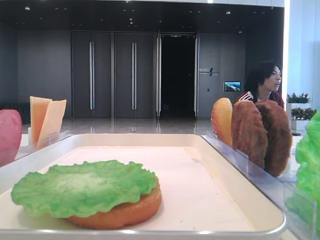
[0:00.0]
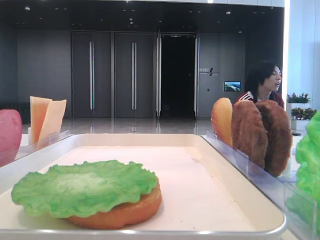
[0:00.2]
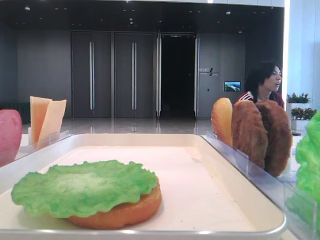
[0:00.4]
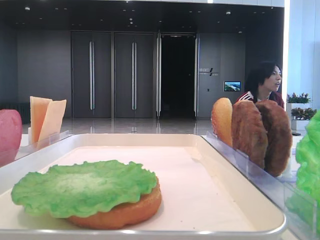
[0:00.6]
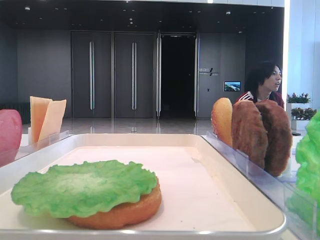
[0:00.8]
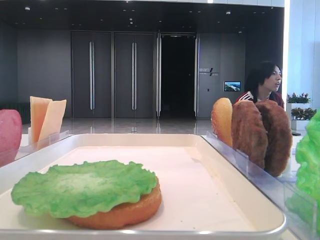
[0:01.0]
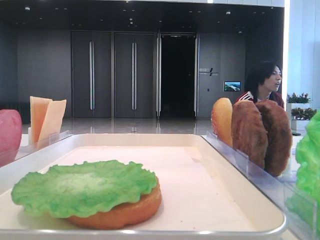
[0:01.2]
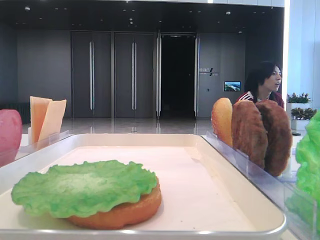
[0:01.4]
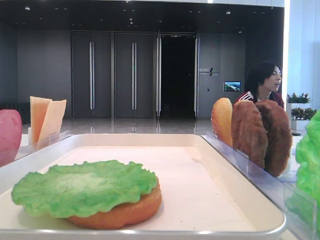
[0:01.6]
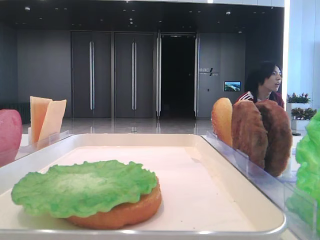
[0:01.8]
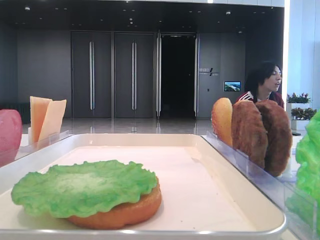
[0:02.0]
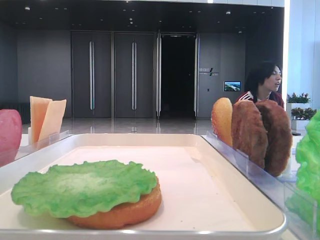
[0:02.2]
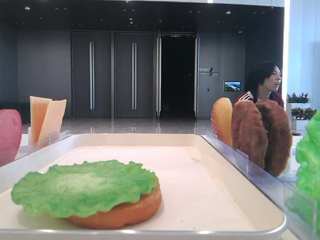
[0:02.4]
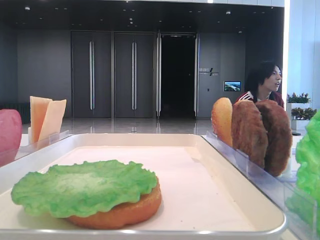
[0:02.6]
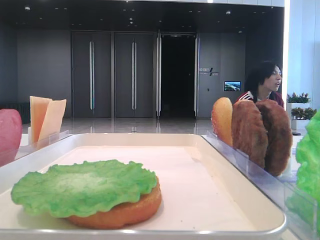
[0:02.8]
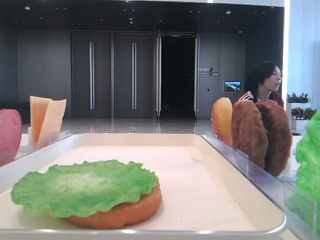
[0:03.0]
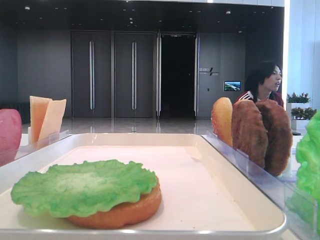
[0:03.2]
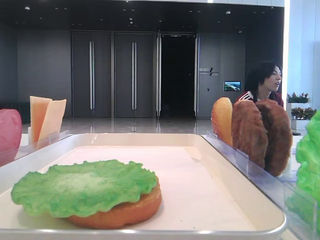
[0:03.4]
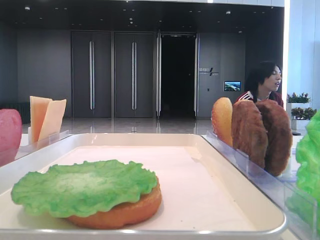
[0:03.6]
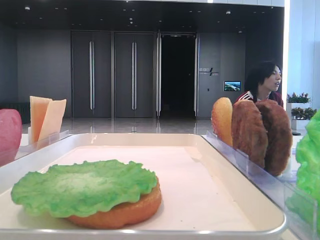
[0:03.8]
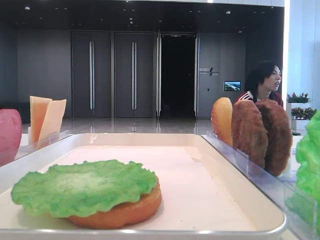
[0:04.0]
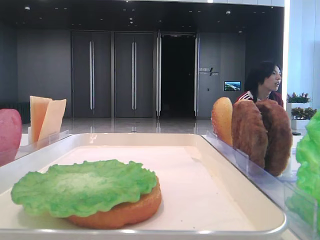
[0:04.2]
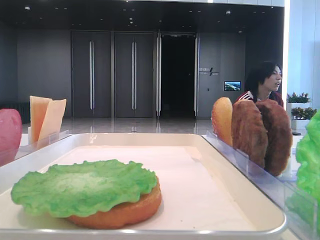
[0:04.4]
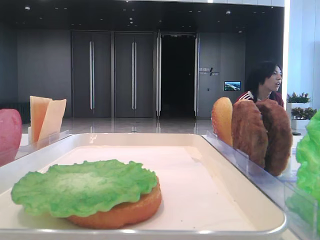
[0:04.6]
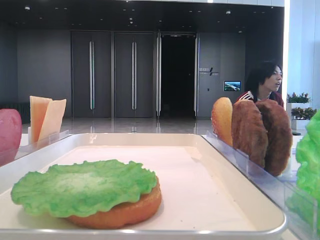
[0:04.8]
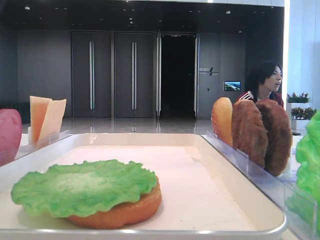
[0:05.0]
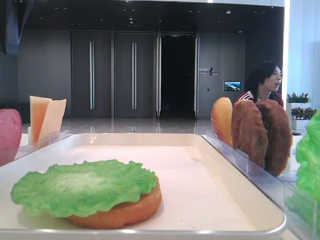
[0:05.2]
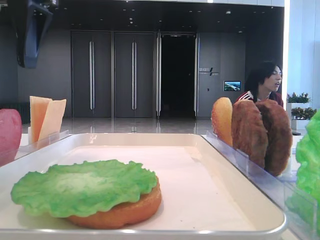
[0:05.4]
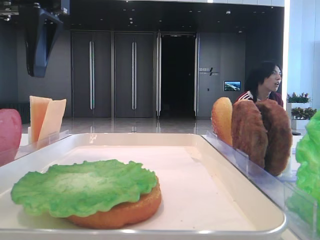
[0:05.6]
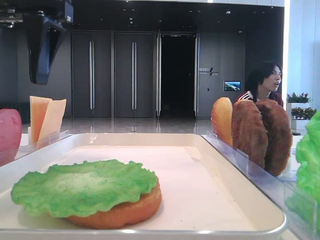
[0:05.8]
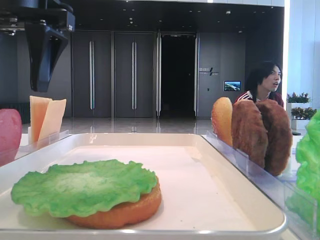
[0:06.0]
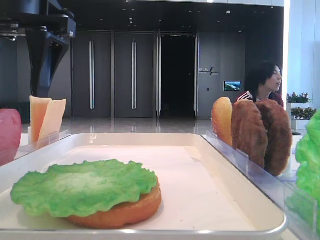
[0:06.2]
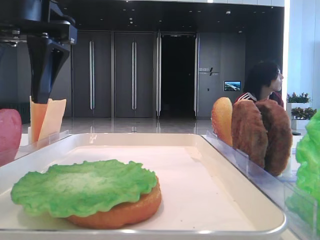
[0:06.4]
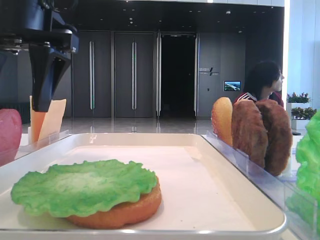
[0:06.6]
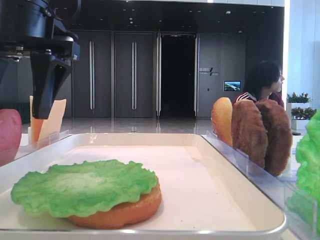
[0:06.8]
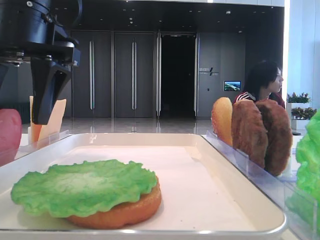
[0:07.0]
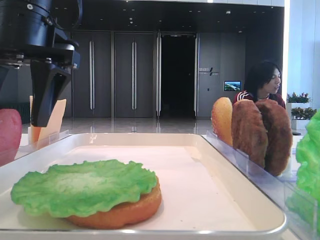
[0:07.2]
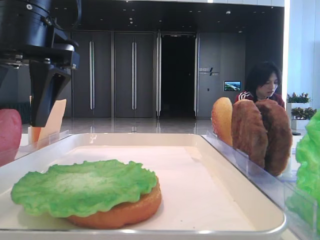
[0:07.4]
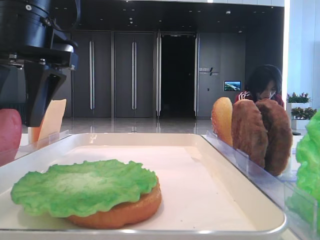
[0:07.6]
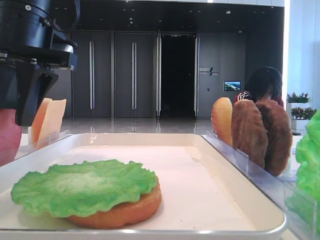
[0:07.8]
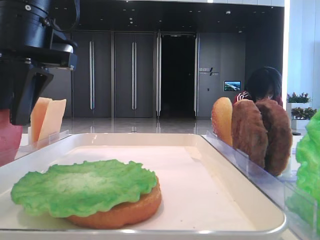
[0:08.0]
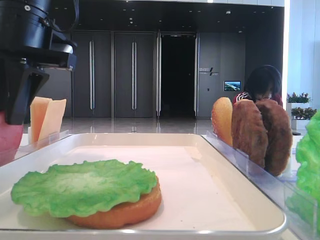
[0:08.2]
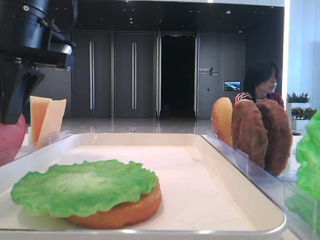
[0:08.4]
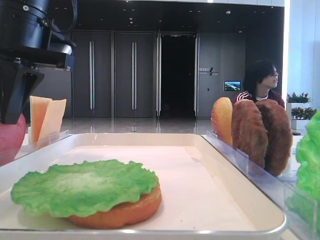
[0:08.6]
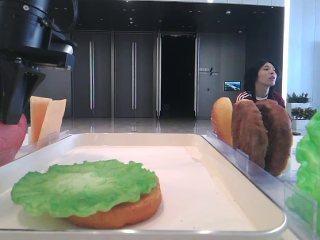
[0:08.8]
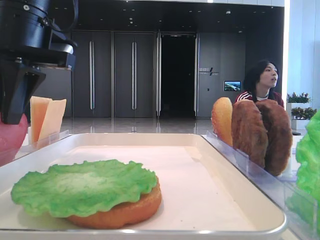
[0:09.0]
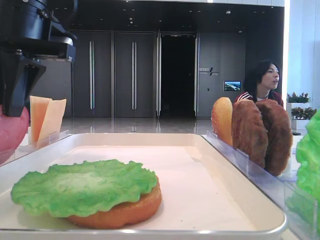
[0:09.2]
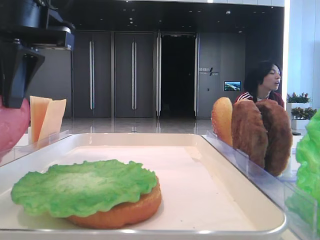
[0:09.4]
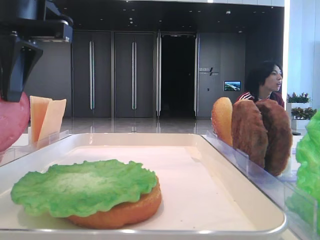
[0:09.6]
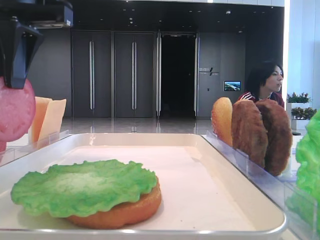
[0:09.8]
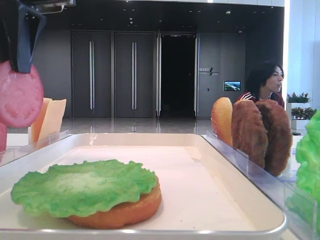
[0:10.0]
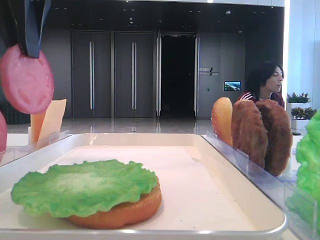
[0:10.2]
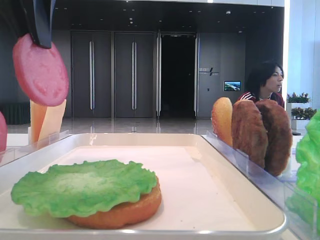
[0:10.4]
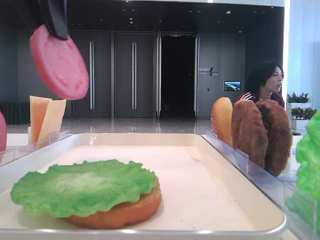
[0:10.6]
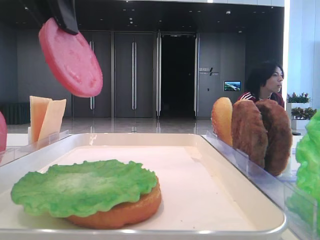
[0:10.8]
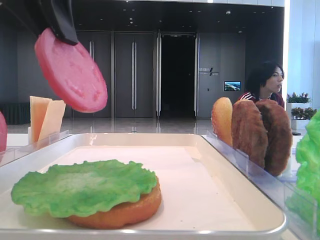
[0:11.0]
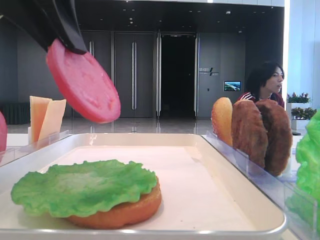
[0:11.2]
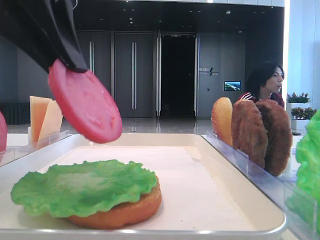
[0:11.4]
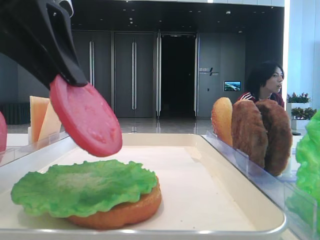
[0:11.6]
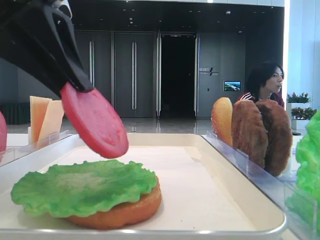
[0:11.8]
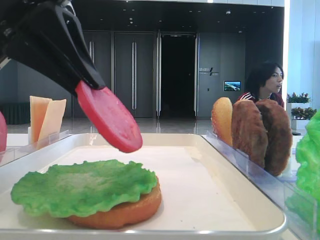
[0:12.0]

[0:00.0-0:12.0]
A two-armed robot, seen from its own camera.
Step, 0:00.0 to 0:08.8: Pick up the tomato slice with the left hand.
0:04.4 to 0:06.0: The left gripper travels to the right by about 15 cm.
0:06.0 to 0:07.6: The grippers stay close to where they were, moving slightly.
0:07.6 to 0:09.0: The left gripper closes.
0:09.0 to 0:10.4: The left gripper goes approximately 10 cm upward.
0:10.4 to 0:12.0: The left gripper shifts about 10 cm downward and backward.

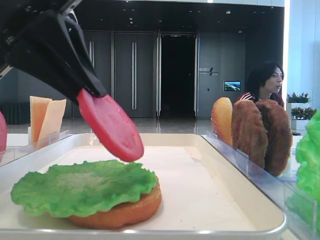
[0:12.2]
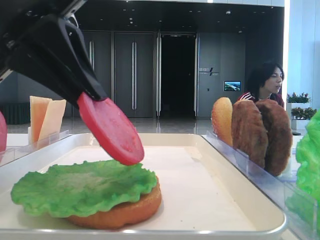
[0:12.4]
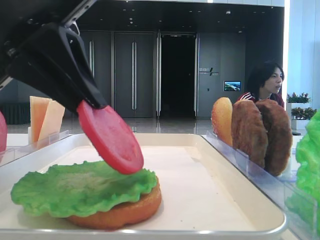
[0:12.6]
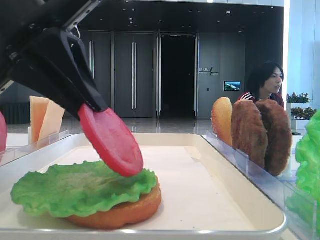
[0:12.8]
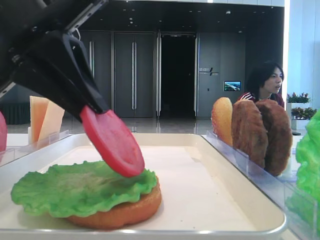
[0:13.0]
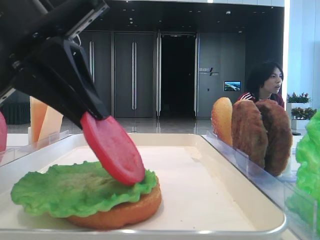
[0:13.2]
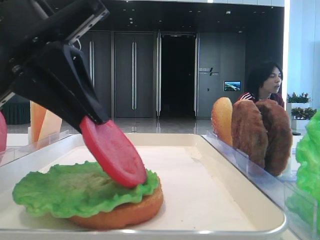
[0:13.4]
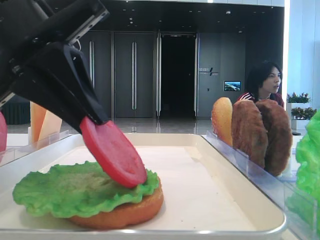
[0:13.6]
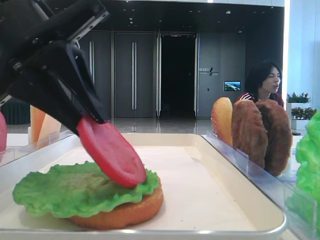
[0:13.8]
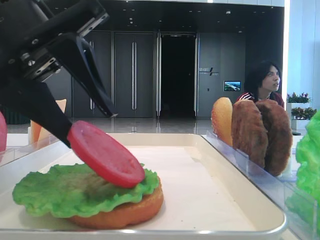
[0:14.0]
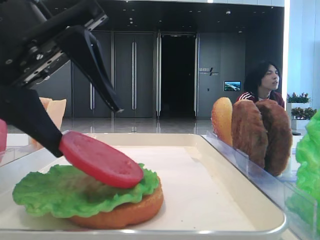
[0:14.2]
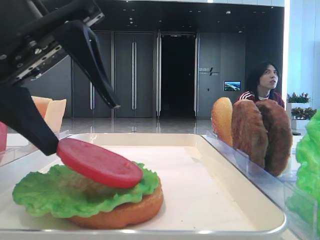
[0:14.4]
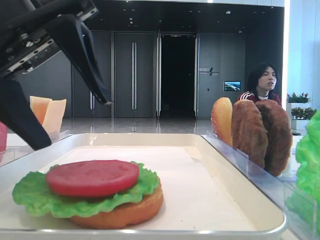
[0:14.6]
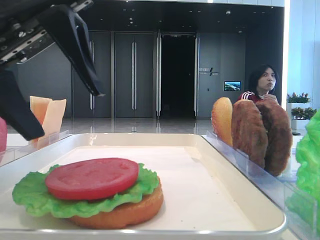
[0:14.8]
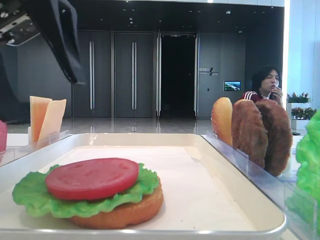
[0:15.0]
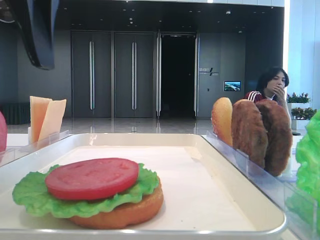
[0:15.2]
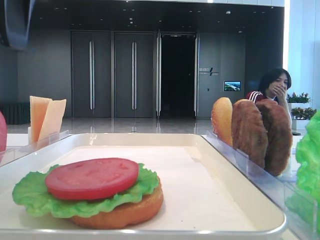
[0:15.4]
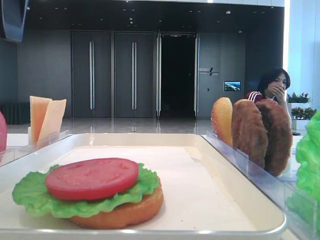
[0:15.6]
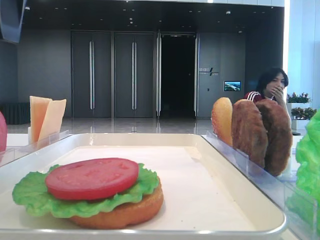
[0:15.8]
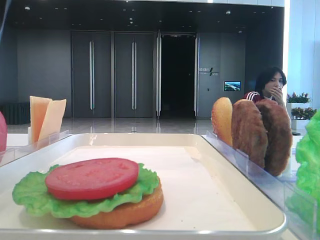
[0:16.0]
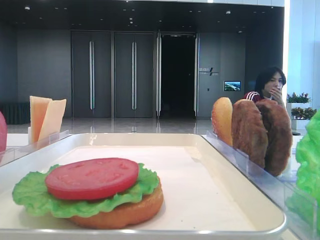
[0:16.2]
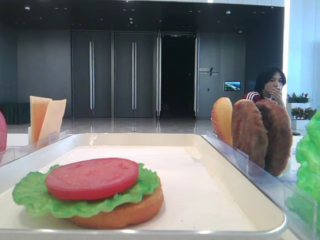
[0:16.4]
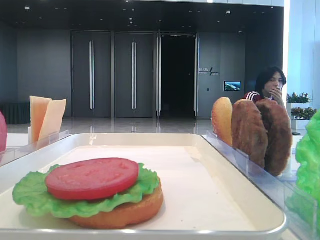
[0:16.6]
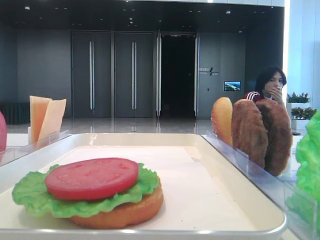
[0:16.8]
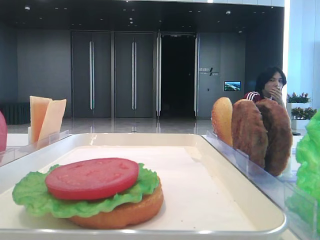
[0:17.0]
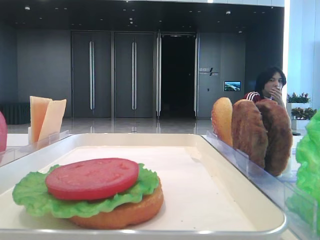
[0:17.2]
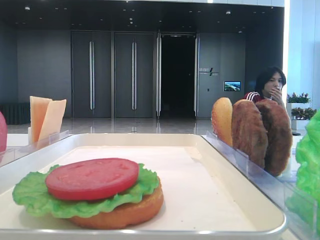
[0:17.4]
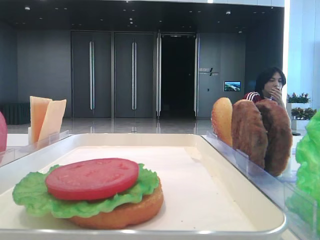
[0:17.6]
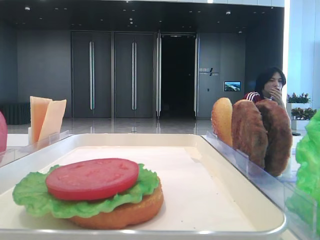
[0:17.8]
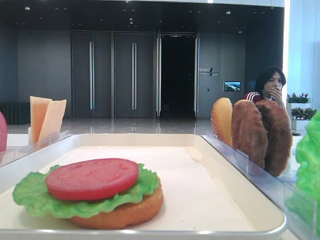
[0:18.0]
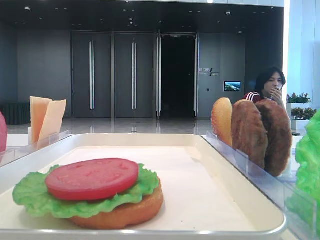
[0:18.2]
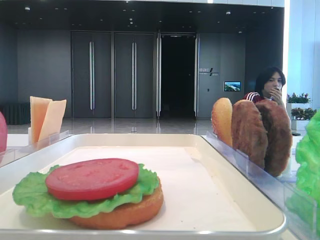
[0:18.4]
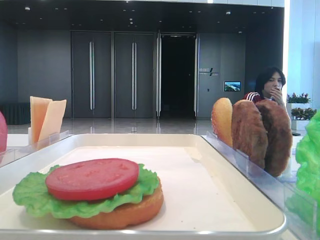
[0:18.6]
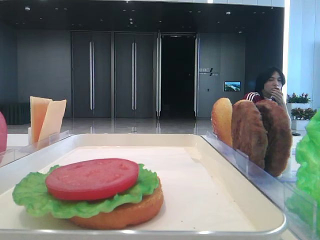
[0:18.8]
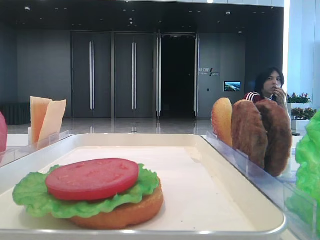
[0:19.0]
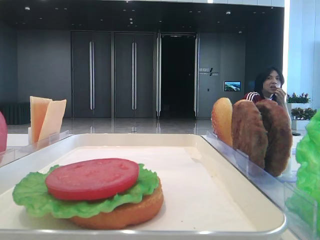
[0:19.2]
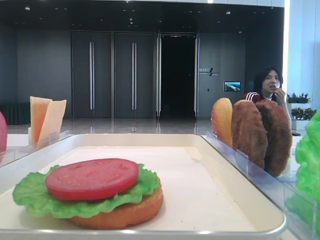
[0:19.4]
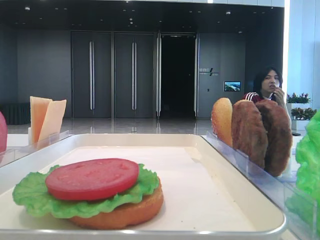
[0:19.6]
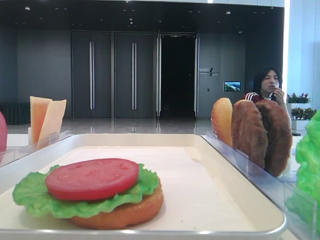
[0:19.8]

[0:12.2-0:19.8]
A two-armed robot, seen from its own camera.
Step, 0:12.2 to 0:14.4: Place the tomato slice on the lettuce leaf with the left hand.
0:12.2 to 0:13.8: The grippers make only small movements.
0:13.8 to 0:15.2: The left gripper is displaced upward by roughly 5 cm, and opens.
0:15.2 to 0:16.8: The left gripper heads to the left and upward, covering some 15 cm.

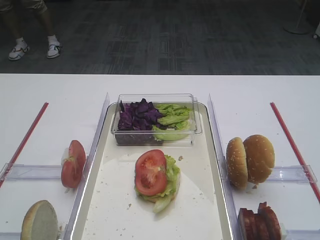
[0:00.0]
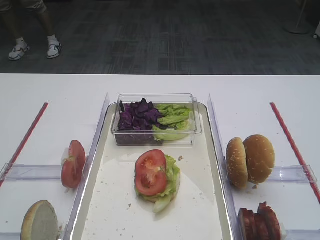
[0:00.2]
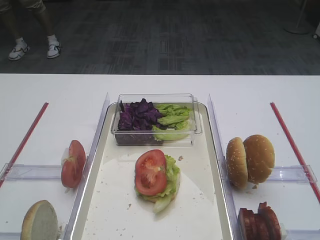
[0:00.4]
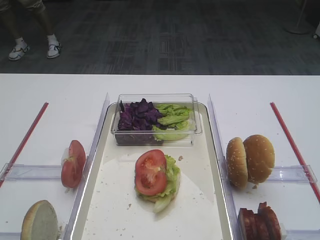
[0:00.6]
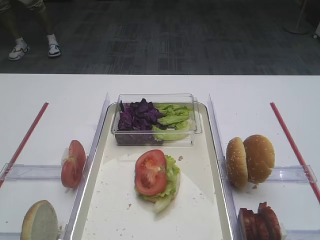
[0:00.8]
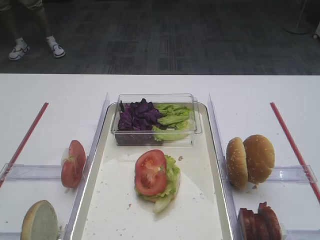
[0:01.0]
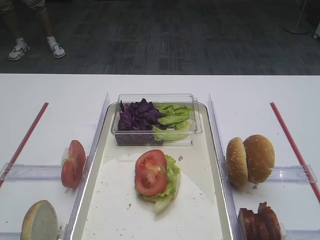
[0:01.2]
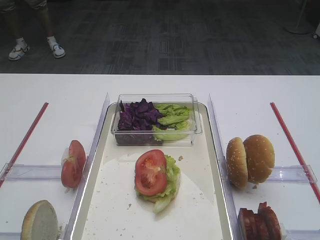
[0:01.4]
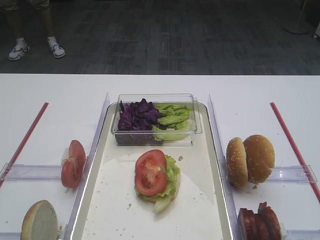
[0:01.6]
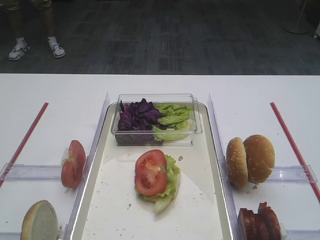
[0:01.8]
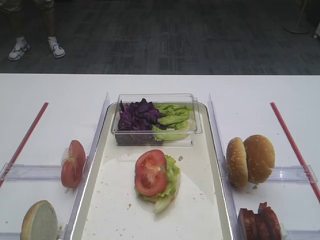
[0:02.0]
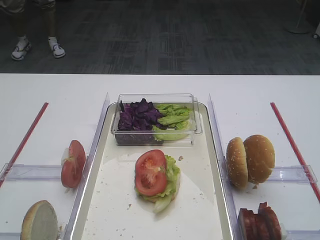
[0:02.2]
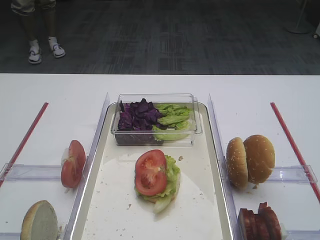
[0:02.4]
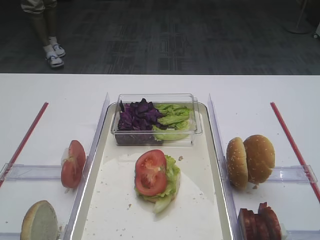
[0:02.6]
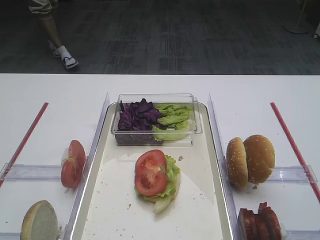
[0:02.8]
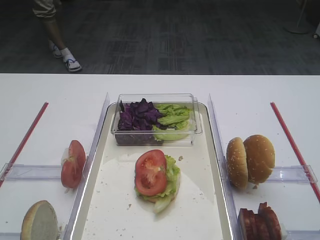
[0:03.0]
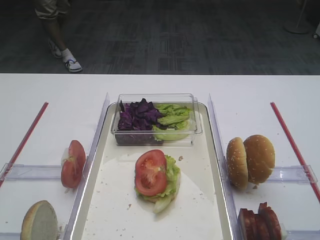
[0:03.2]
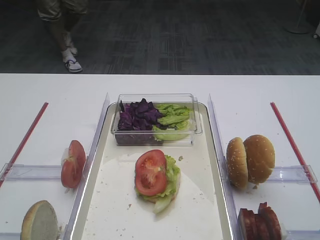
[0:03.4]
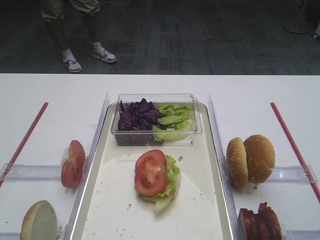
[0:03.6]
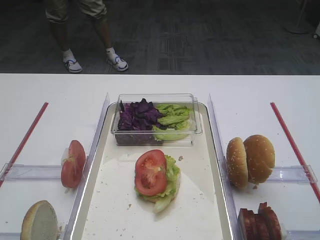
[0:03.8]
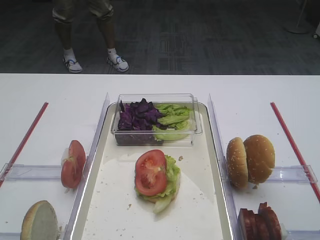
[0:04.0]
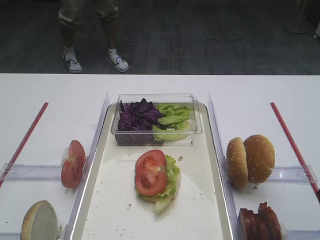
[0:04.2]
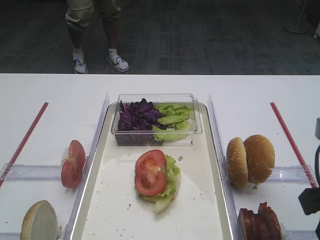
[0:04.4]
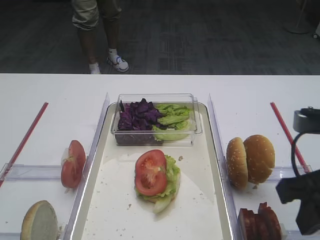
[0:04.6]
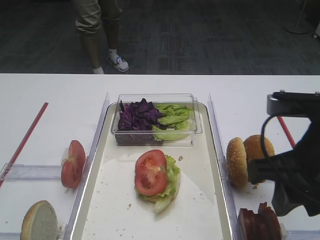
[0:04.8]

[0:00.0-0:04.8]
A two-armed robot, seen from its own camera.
0:03.2 to 0:04.8: The right gripper shifts some 10 cm to the left.
